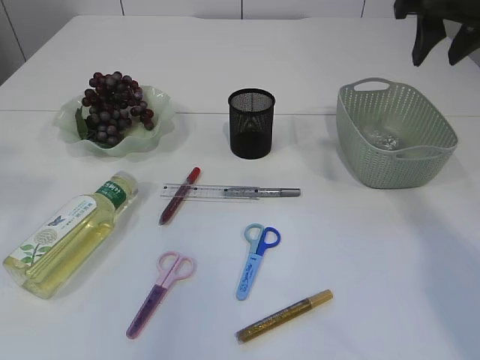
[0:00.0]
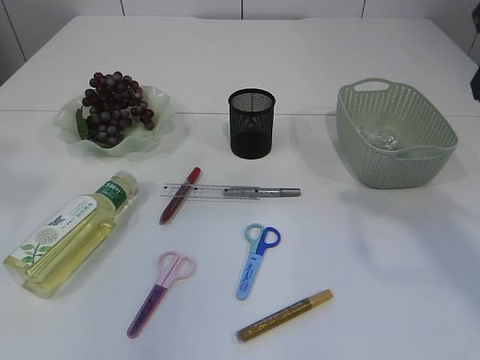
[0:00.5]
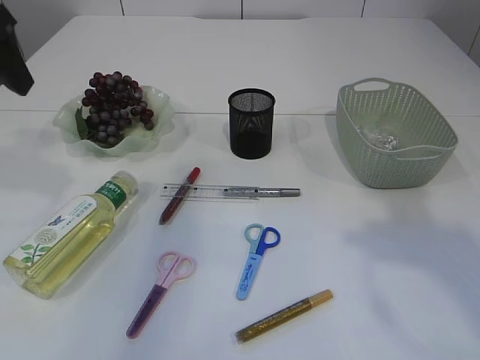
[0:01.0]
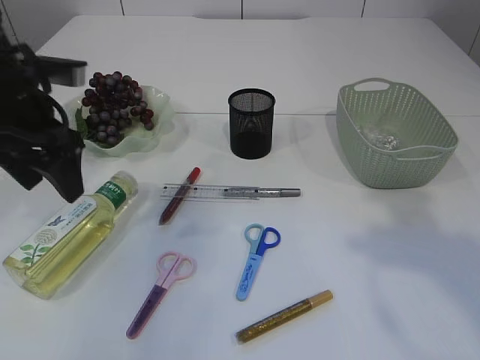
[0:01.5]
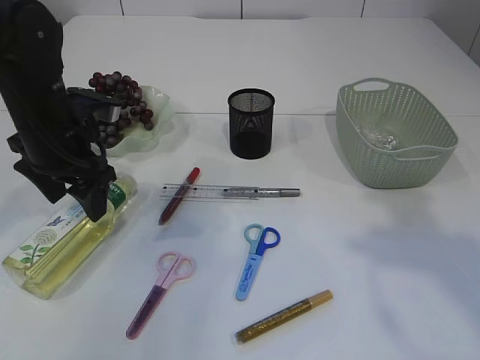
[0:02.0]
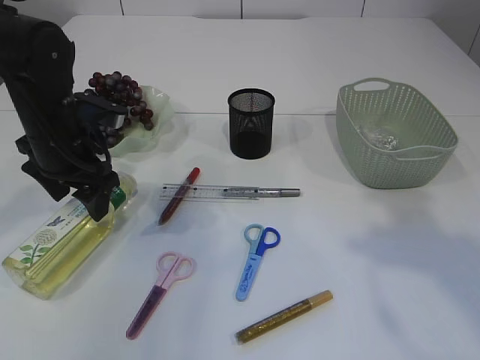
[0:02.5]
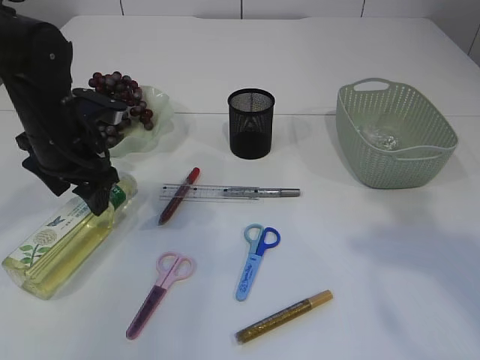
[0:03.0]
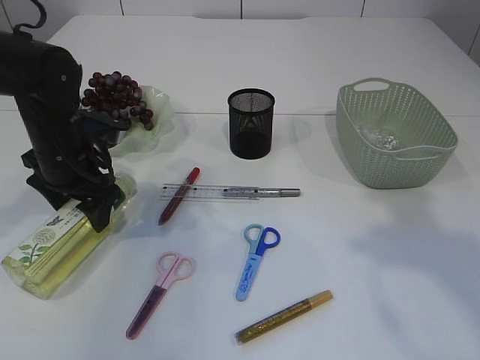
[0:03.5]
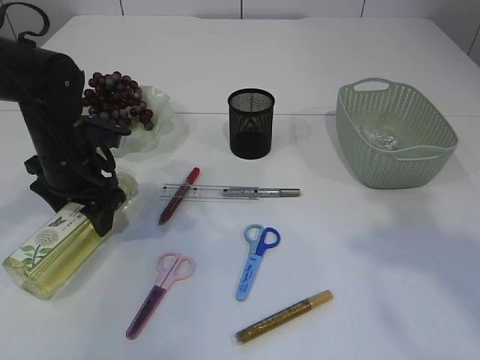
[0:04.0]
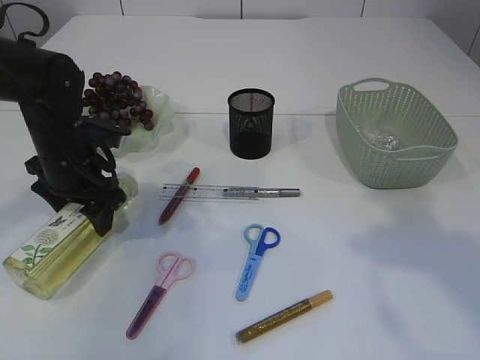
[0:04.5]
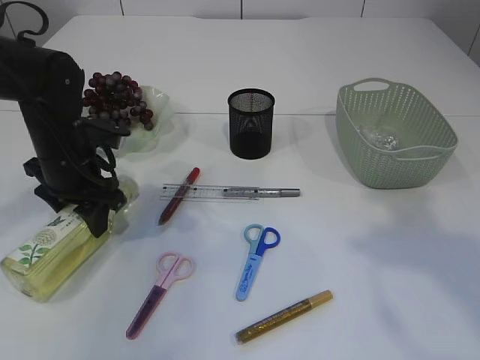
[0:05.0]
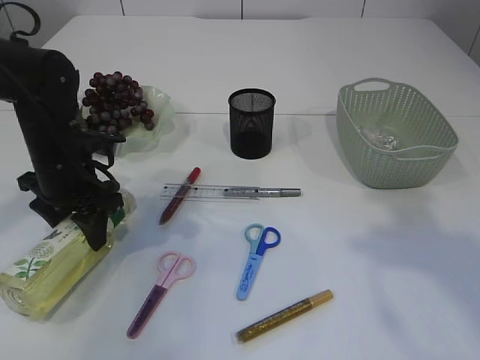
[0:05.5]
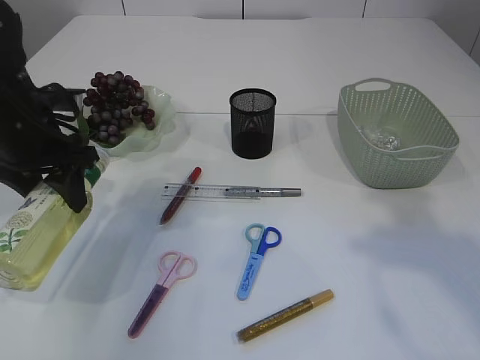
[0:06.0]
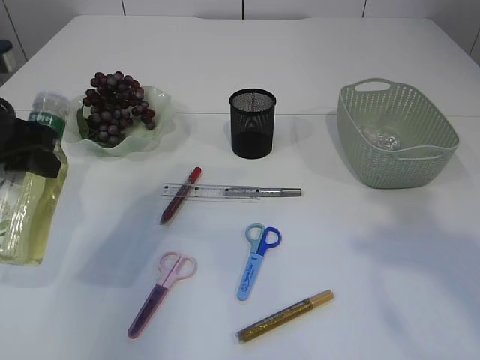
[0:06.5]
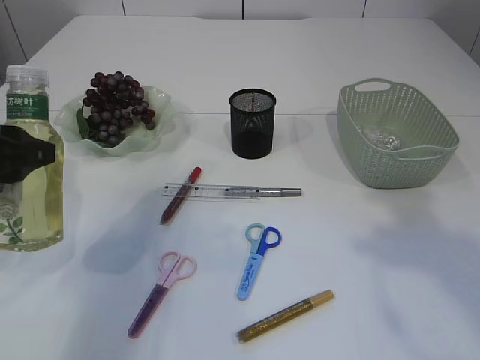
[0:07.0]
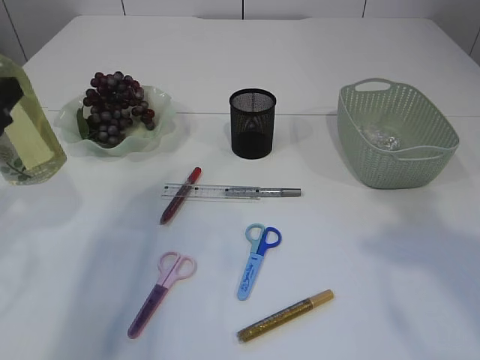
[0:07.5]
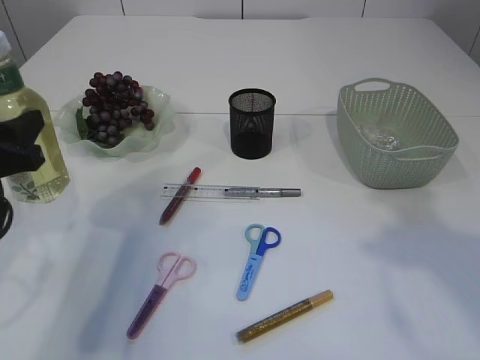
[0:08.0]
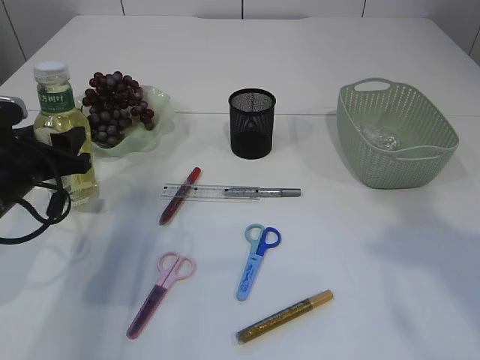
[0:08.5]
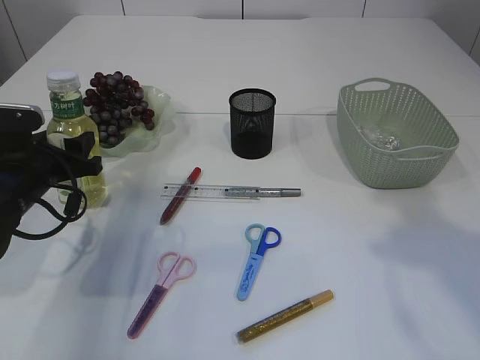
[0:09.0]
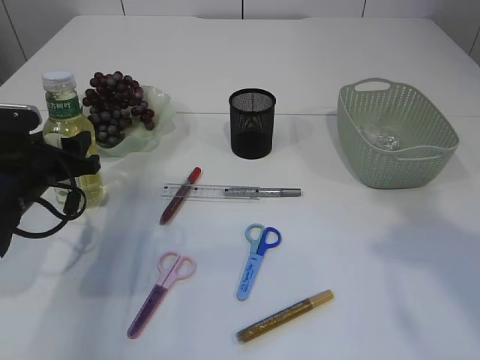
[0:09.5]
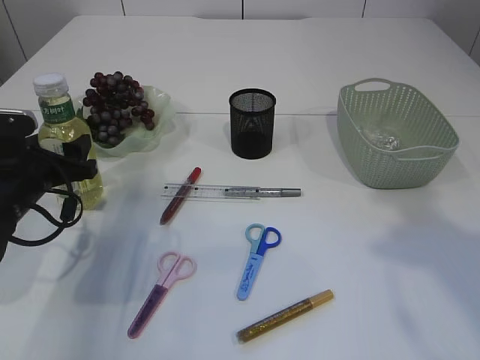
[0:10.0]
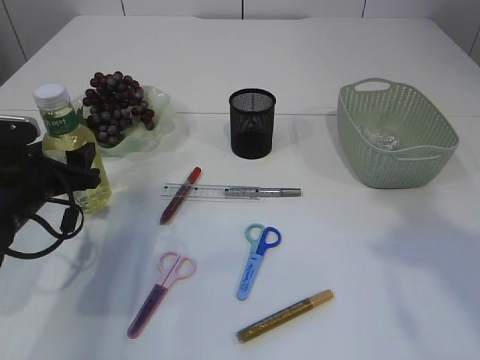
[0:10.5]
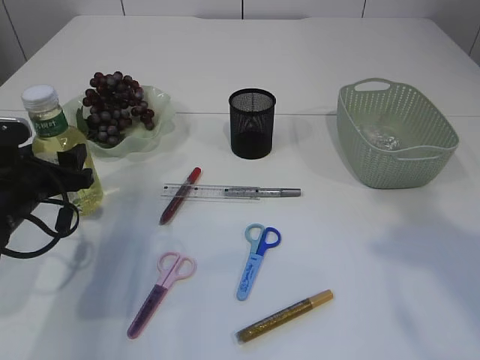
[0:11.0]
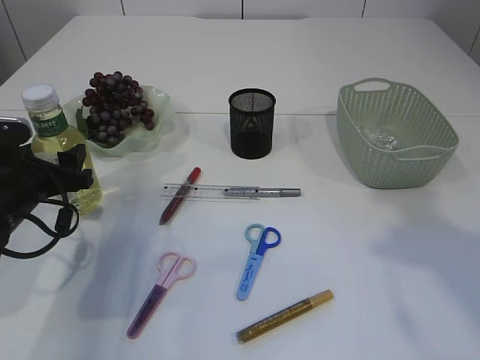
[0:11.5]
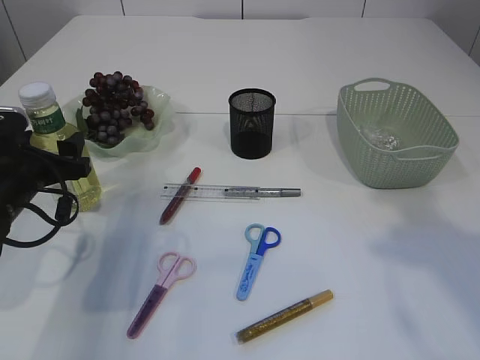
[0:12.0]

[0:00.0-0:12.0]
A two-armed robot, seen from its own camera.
Step, 0:00.0 to 0:06.5: Pick up the bottle with the left arm.
0:00.0 to 0:02.0: The left gripper heads downward and forward, covering about 30 cm, and opens. Meanwhile the right gripper moves backward, approximately 25 cm.
0:02.0 to 0:04.0: The left gripper shifts roughly 5 cm downward.
0:04.0 to 0:06.0: The left gripper goes approximately 5 cm upward, and closes its fingers.
0:06.0 to 0:08.0: The left gripper heads backward, covering about 10 cm.
0:08.0 to 0:10.0: The left gripper heads downward and forward, covering roughly 10 cm.
0:10.0 to 0:12.0: There are only small adjustments of the grippers.

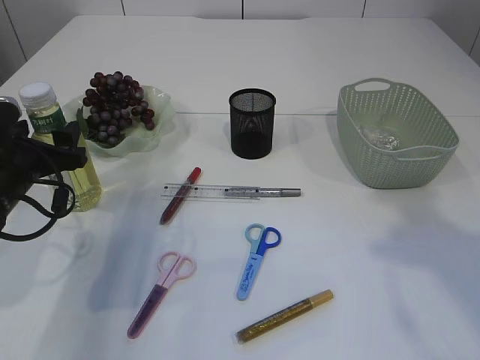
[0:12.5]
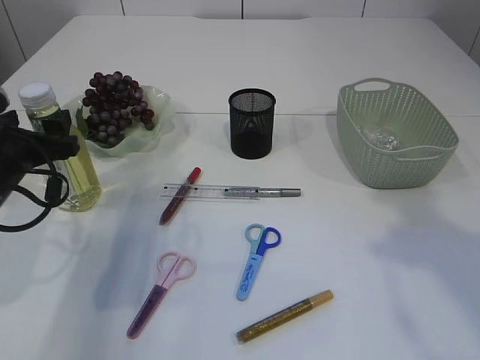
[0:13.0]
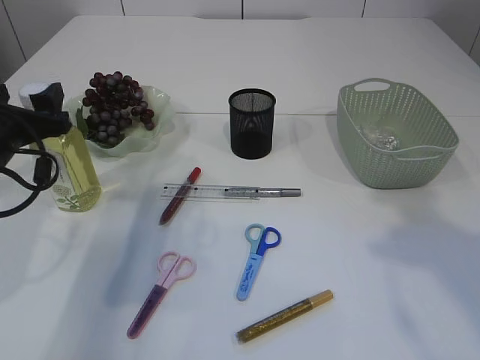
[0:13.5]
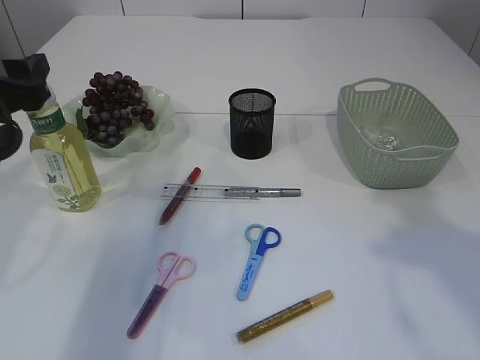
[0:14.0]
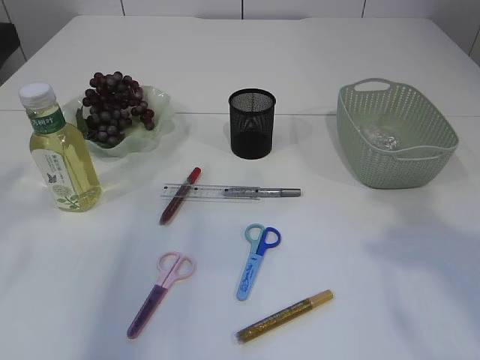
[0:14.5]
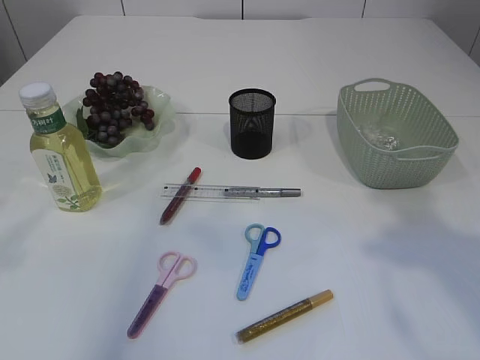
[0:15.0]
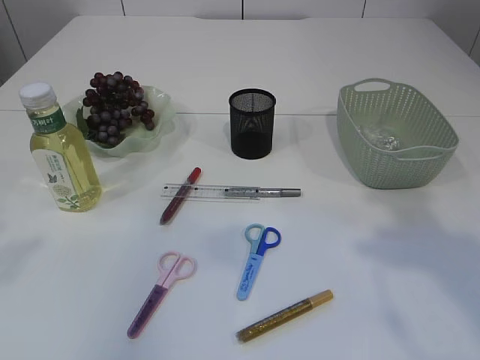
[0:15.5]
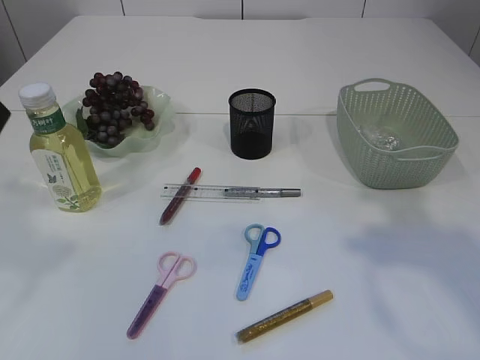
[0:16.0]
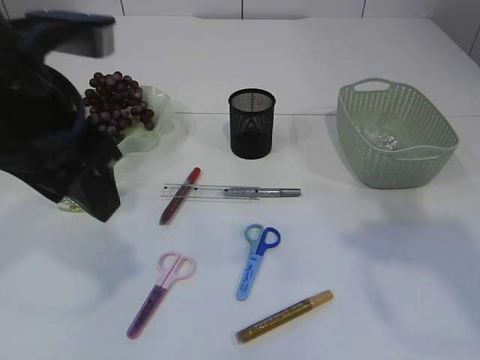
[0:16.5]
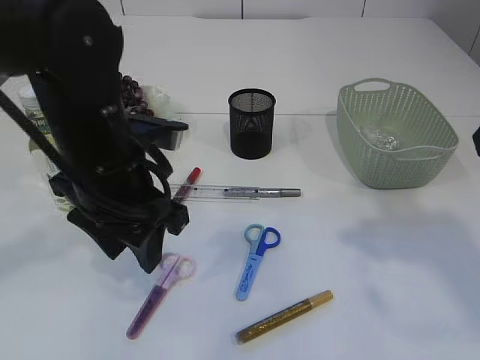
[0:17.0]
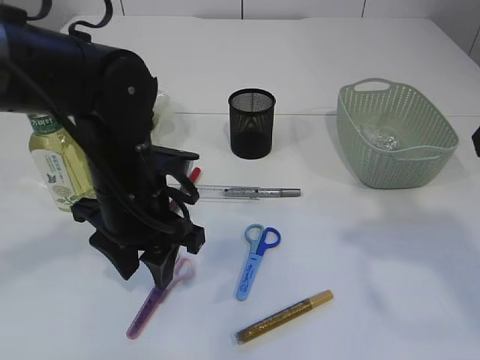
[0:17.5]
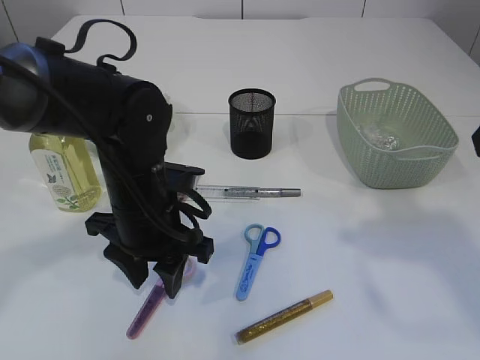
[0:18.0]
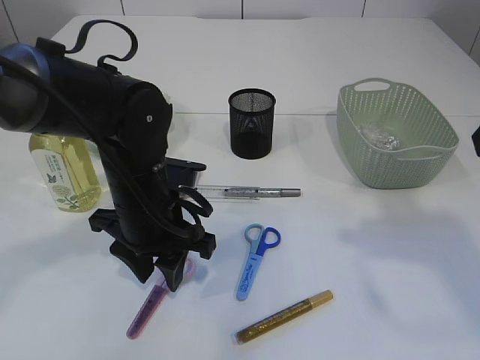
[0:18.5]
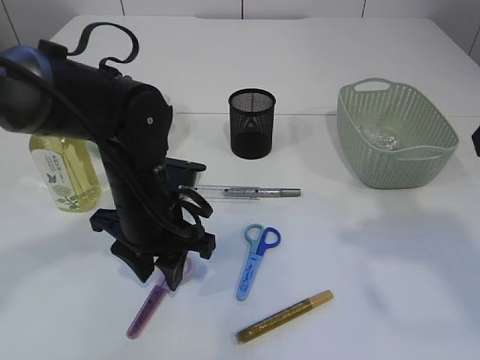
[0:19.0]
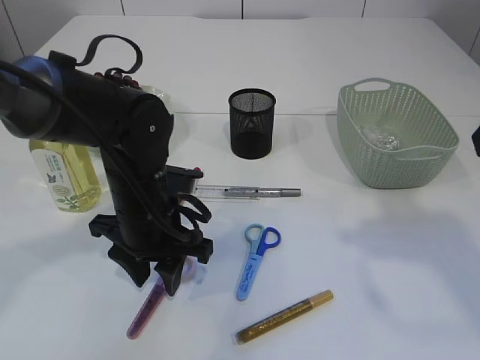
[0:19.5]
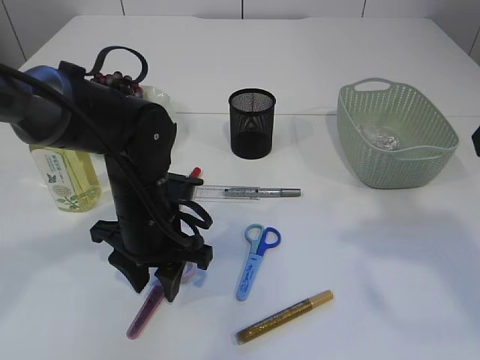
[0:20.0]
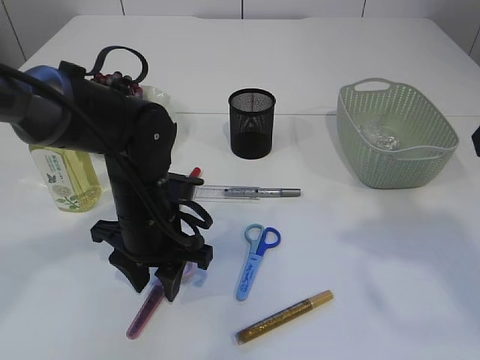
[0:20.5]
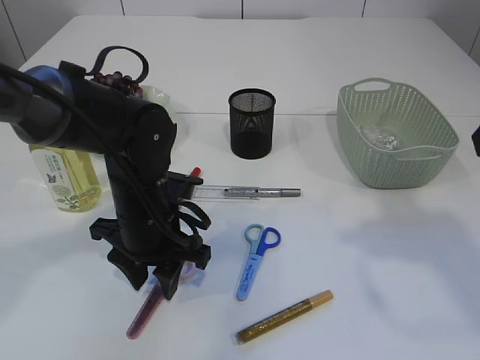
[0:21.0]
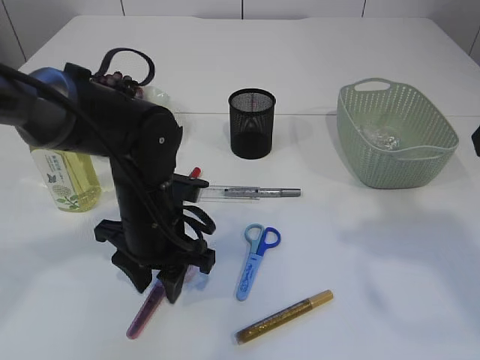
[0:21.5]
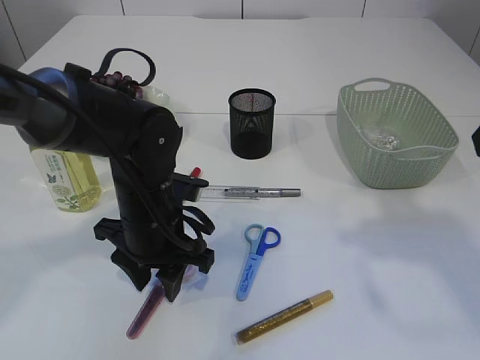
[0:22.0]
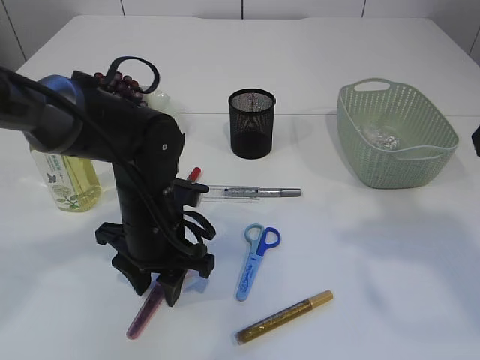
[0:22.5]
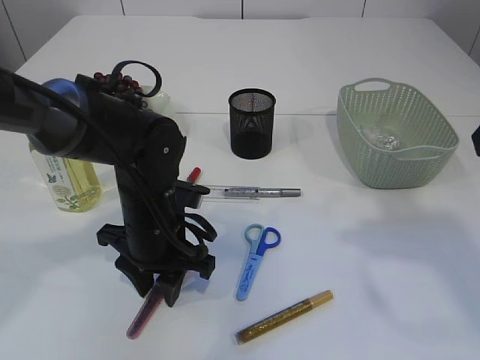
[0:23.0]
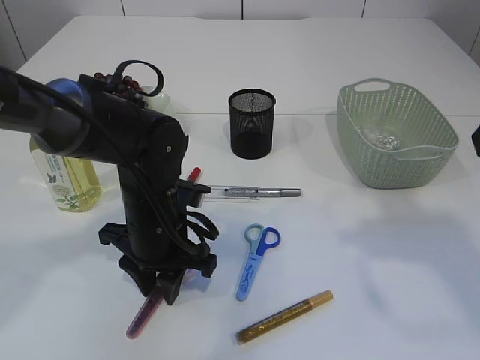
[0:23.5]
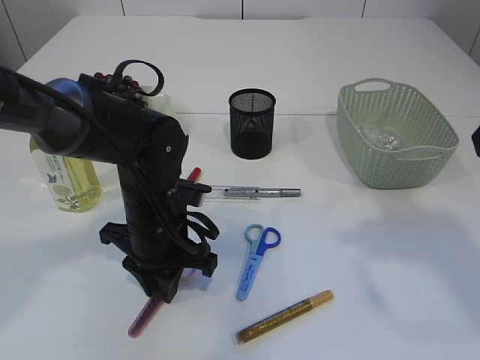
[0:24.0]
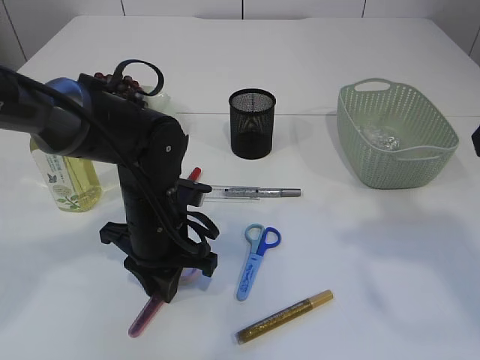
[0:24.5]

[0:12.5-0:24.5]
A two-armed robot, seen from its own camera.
0:12.5 to 0:14.5: The left gripper travels upward and backward by approximately 20 cm.
0:14.5 to 0:16.5: The left gripper travels to the right by some 10 cm.
0:16.5 to 0:18.5: The left gripper goes some 15 cm downward.
0:18.5 to 0:20.5: The grippers move only a little.
0:20.5 to 0:22.5: Neither gripper changes place.
0:22.5 to 0:24.5: The left gripper closes up.

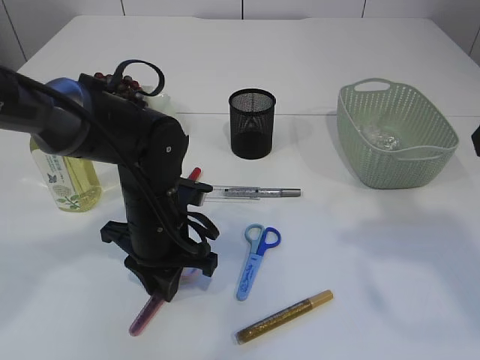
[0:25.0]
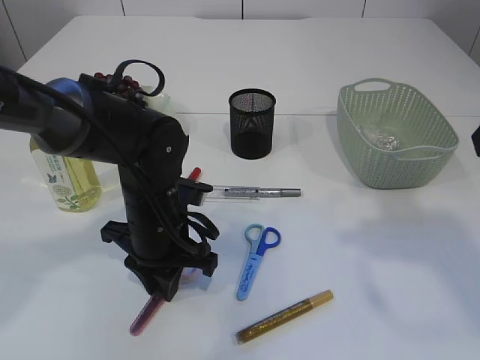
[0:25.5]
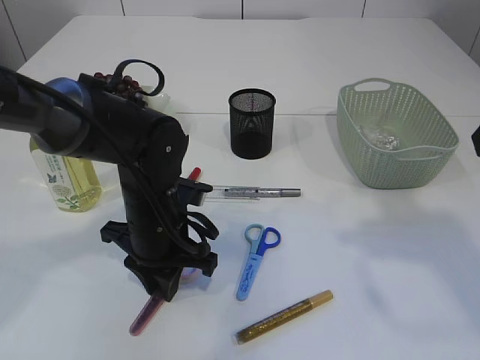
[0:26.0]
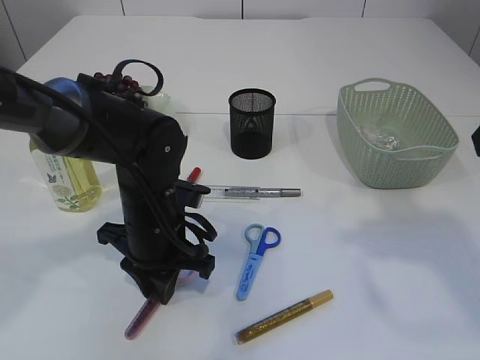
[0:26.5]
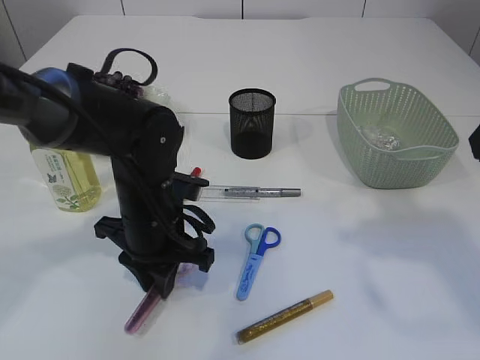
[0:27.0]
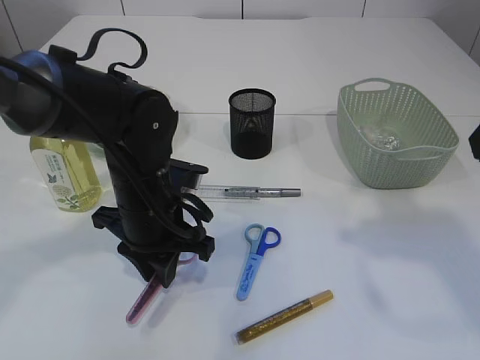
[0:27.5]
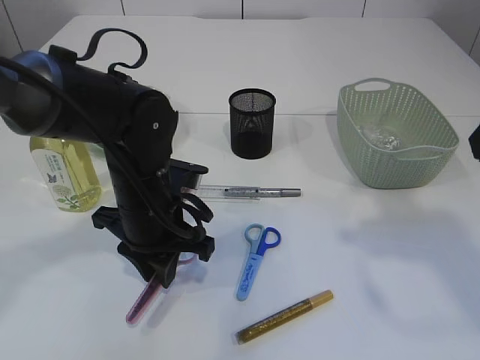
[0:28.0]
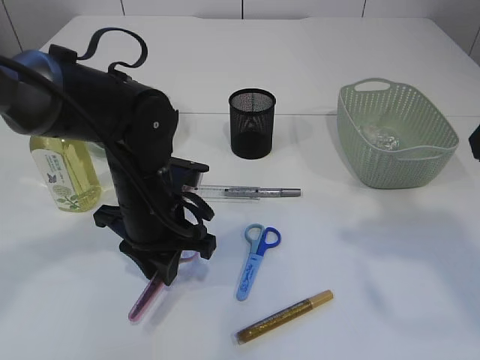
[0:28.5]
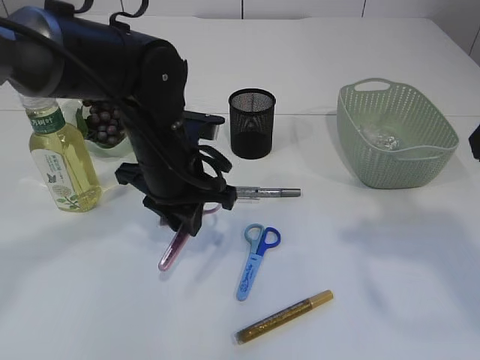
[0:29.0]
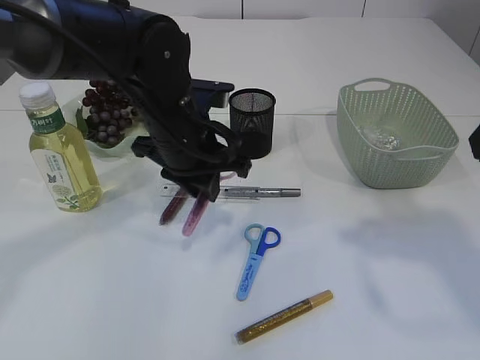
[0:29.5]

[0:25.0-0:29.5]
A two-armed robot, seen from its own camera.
Step, 0:25.0 to 0:28.5: pick up the pink scissors.
0:25.0 to 0:27.0: Both grippers stay about where they are.
0:27.0 to 0:29.5: The left gripper is displaced upward by about 10 cm.
